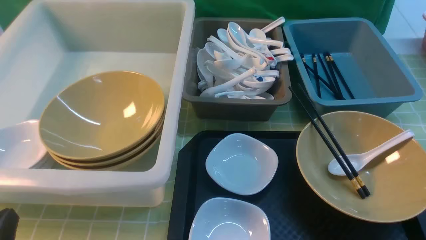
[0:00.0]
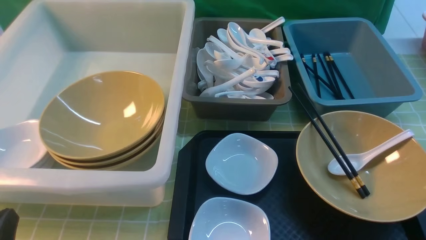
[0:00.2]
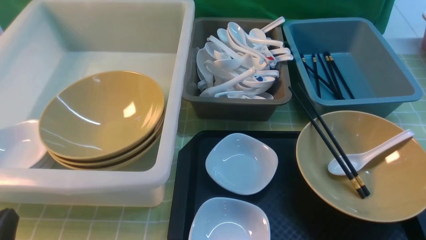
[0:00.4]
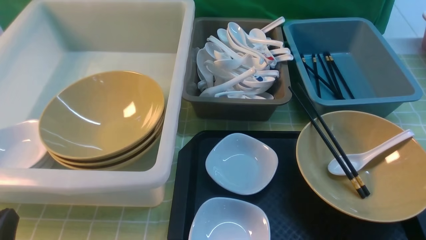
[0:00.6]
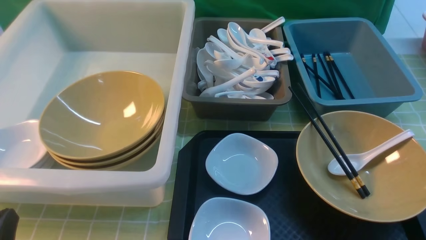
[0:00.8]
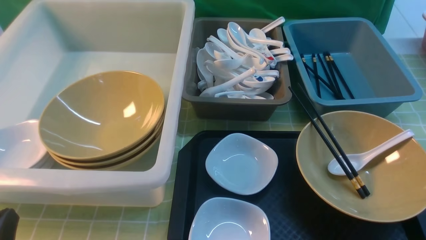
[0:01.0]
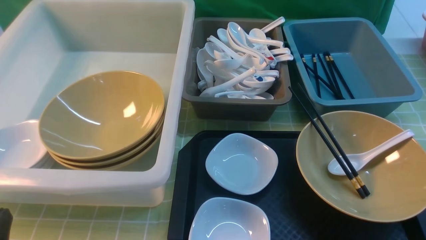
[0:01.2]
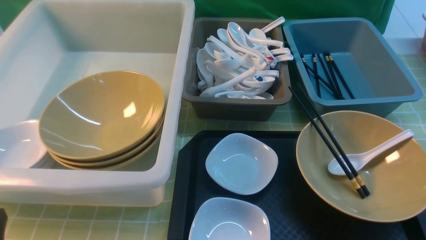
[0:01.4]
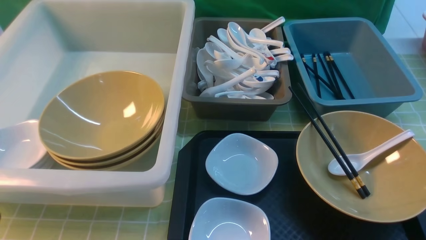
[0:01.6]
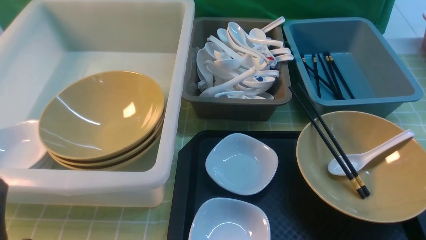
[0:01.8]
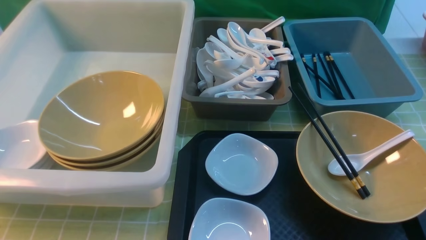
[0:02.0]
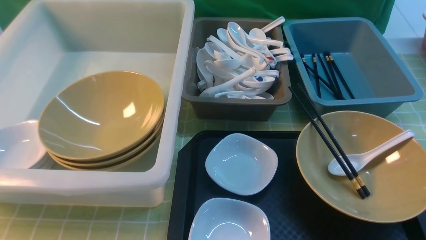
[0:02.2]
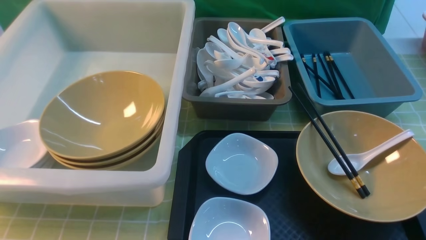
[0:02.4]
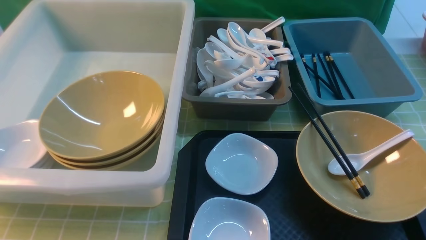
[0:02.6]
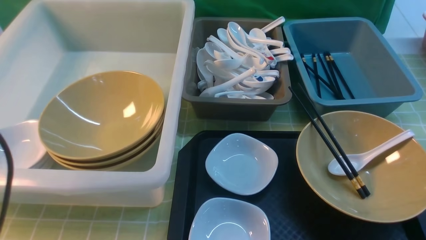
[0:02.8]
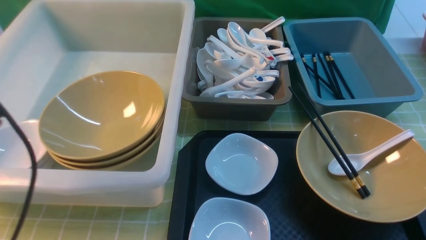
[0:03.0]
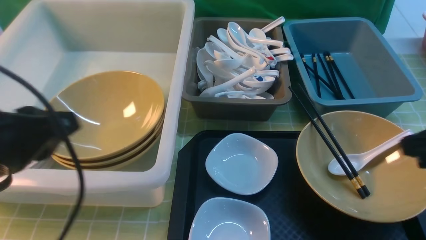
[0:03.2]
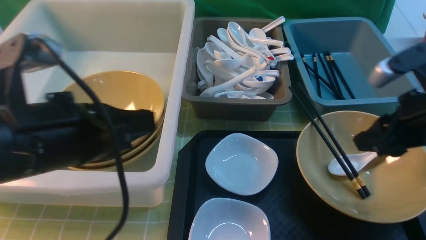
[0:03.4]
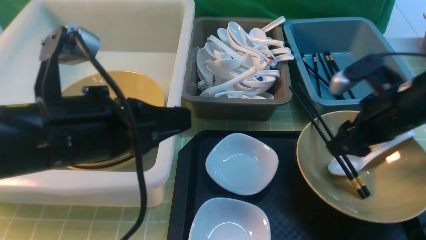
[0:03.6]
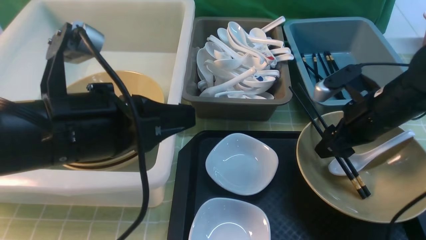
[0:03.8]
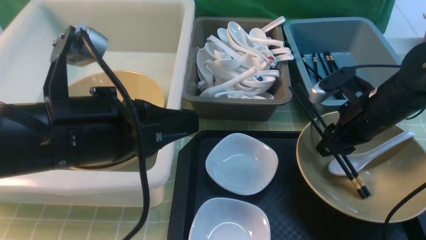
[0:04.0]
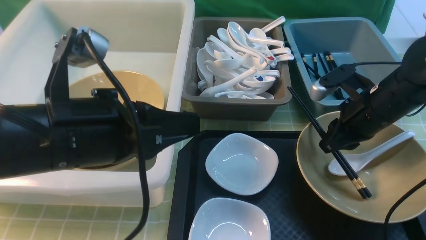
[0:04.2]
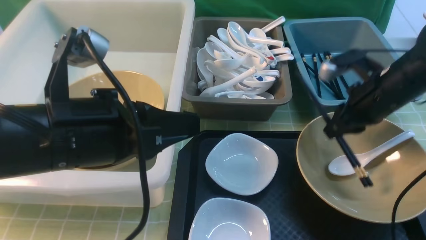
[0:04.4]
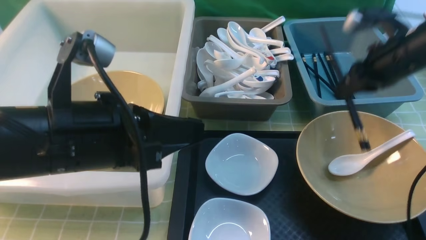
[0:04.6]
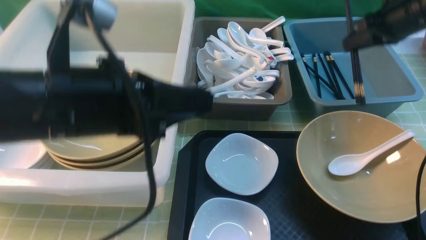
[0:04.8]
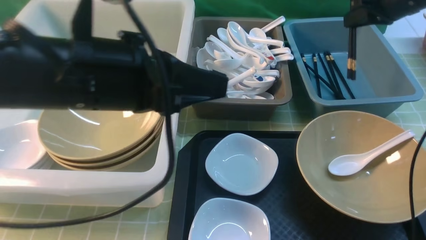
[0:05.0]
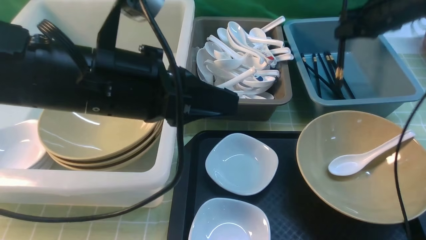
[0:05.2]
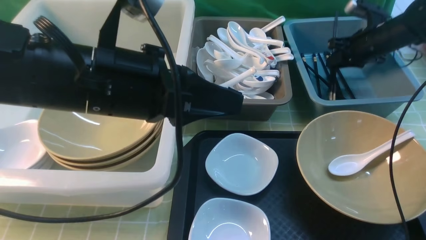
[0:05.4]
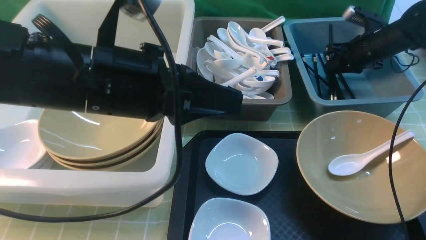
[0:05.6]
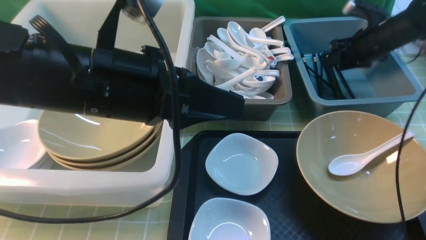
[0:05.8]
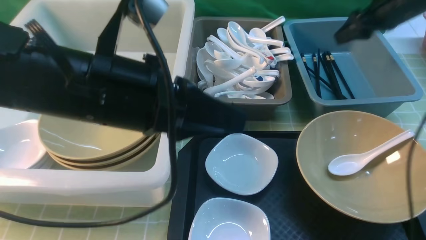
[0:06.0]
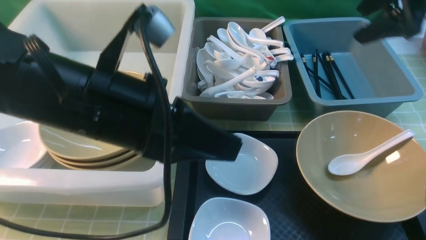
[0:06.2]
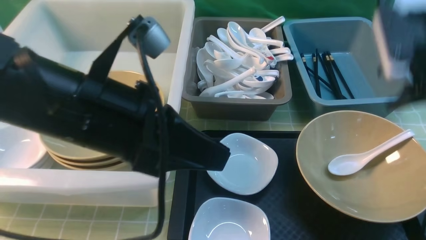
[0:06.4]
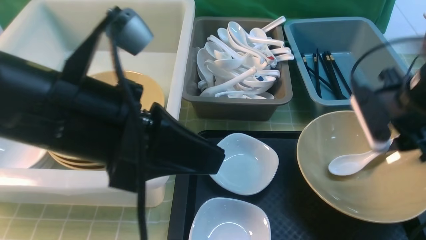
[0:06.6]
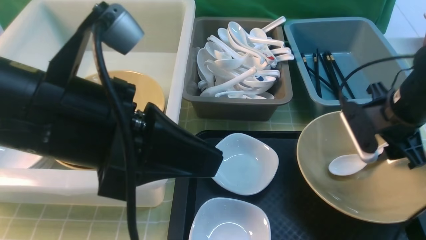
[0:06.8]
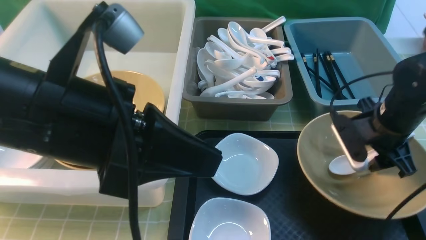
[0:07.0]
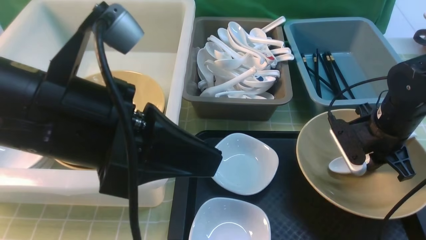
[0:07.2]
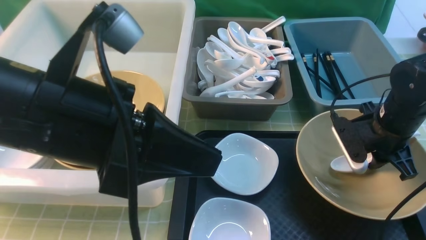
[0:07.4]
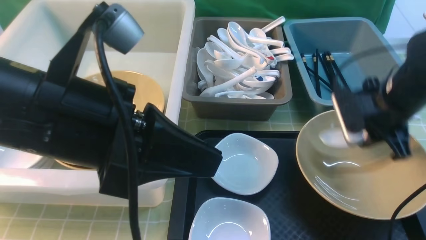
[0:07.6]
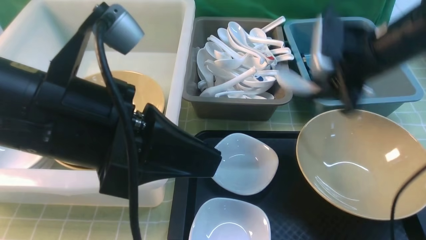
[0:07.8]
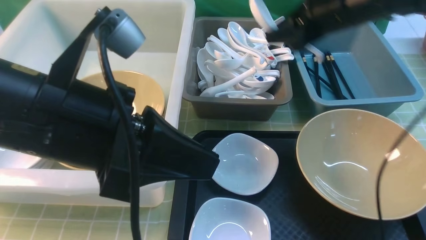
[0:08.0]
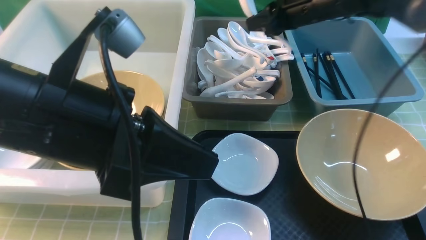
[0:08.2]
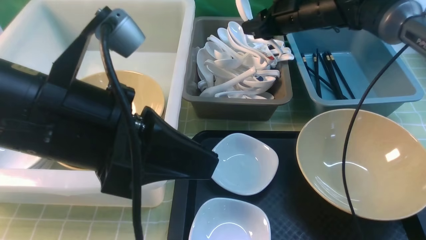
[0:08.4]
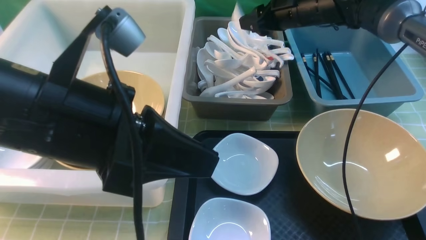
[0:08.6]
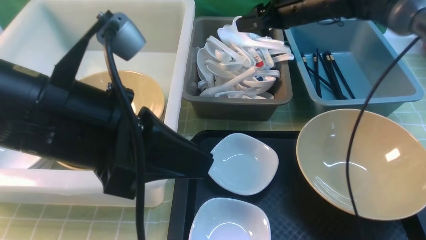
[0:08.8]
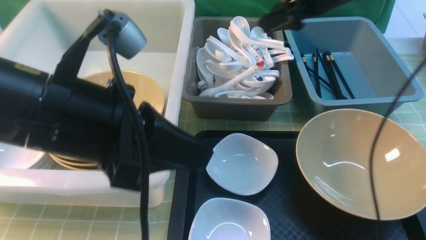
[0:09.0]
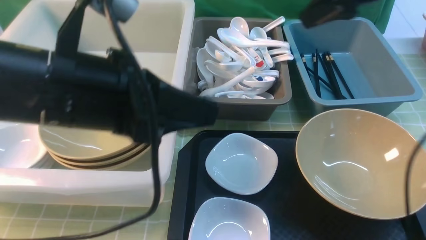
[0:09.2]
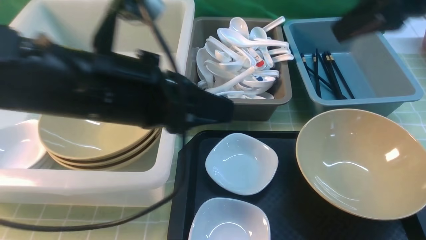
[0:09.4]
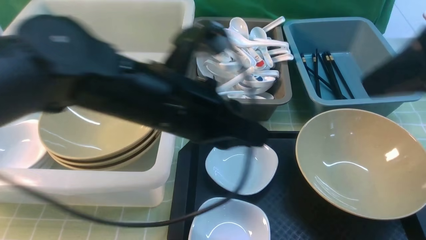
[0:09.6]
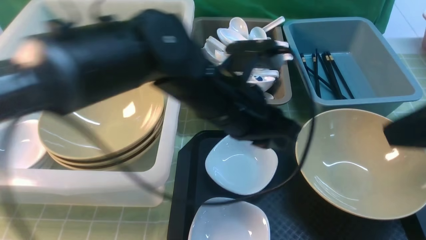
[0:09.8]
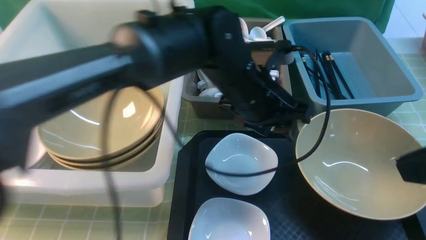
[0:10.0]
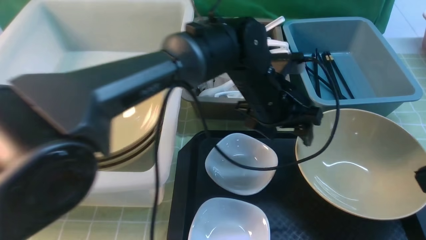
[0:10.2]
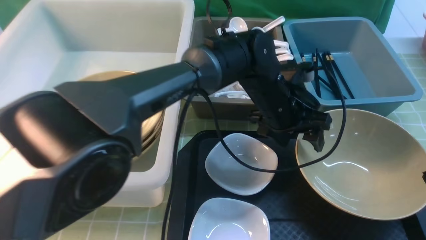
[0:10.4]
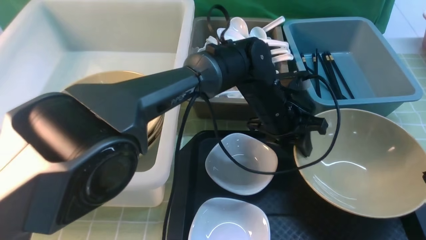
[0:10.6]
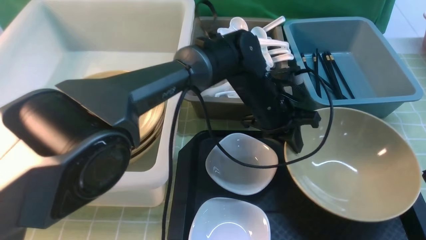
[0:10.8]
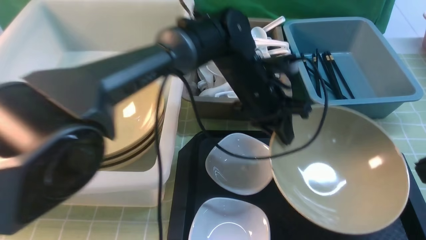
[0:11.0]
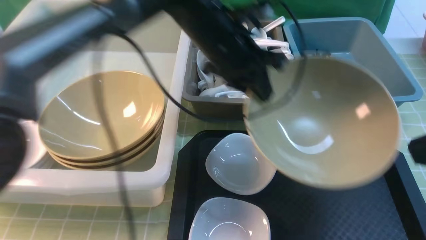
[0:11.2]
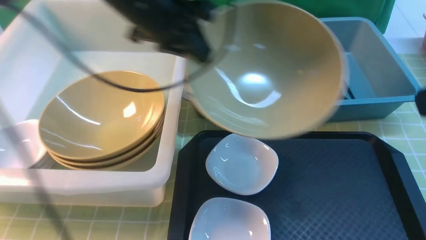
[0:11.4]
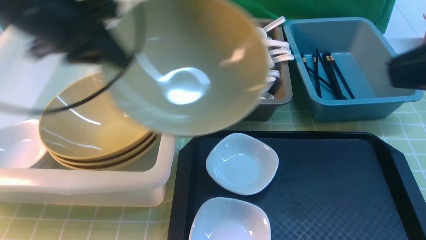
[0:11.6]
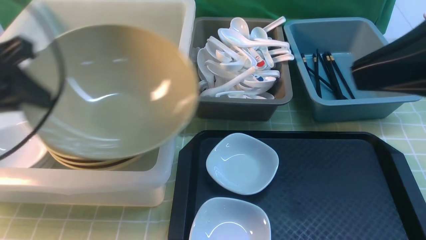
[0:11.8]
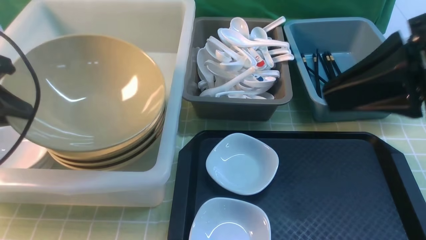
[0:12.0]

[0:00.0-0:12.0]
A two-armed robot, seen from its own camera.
Task of the whole recording: on green table put chopsticks spoon bowls plates into blue grey white boxes.
Step, 0:00.0 to 0:04.6: use the right arm to grab the chopsticks.
Step, 0:04.8 to 0:06.6: use the right arm to put the chopsticks into the small storage box on the right.
Step, 0:06.8 to 0:07.6: use the right arm to grab the soup spoon in the middle.
Step, 0:07.8 to 0:08.8: use the right arm to put the soup spoon into the small storage box in the middle.
Step, 0:09.2 to 0:10.8: use the left arm to grab the yellow noodle bowl on the left.
0:01.6 to 0:03.0: The left gripper travels upward and forward by about 15 cm.
0:03.0 to 0:04.4: The left gripper shifts some 10 cm to the right. The right gripper travels forward and downward by roughly 25 cm, and opens, then closes once more.
0:04.4 to 0:06.0: The left gripper changes place by roughly 5 cm. Meanwhile the right gripper travels forward and to the right by roughly 15 cm, and opens its fingers.
0:06.0 to 0:07.6: The left gripper changes place by some 5 cm, while the right gripper heads backward, to the left and downward, covering approximately 15 cm, and closes.
0:07.6 to 0:09.0: The right gripper is displaced forward, upward and to the left by about 20 cm, and opens up.
0:09.0 to 0:10.4: The right gripper shifts some 35 cm backward, and closes its fingers. The left gripper moves to the right, forward and downward, some 30 cm, and opens.
0:10.4 to 0:12.0: The right gripper moves forward, upward and to the left, roughly 10 cm. Meanwhile the left gripper heads to the left, covering roughly 35 cm, and closes its fingers.

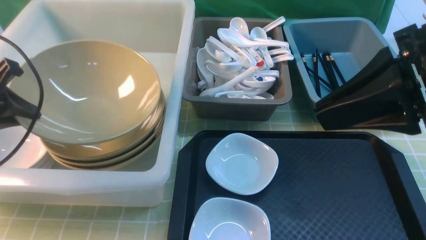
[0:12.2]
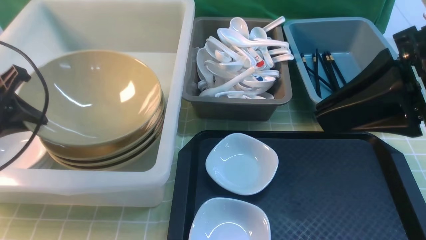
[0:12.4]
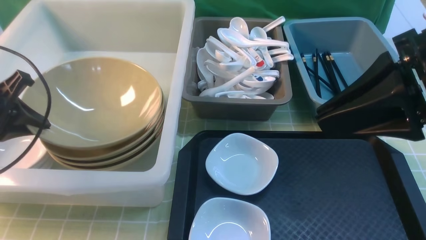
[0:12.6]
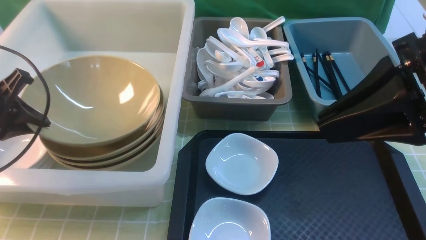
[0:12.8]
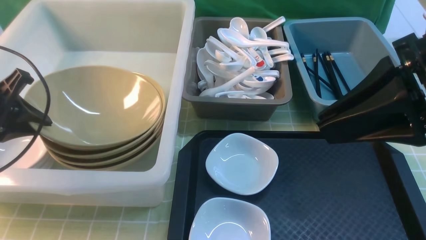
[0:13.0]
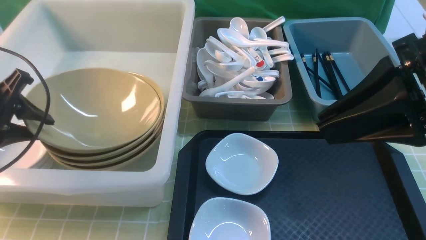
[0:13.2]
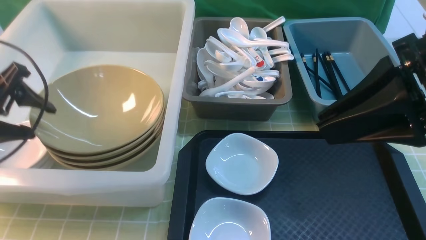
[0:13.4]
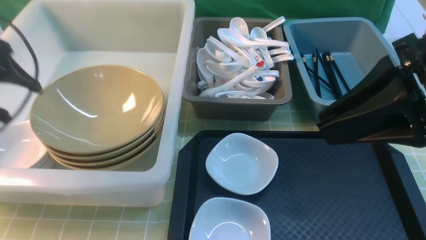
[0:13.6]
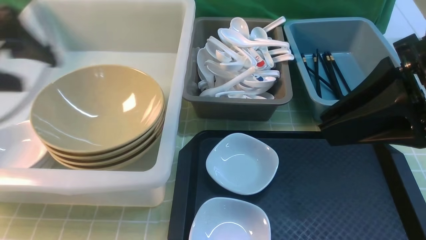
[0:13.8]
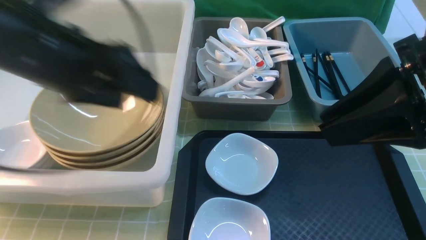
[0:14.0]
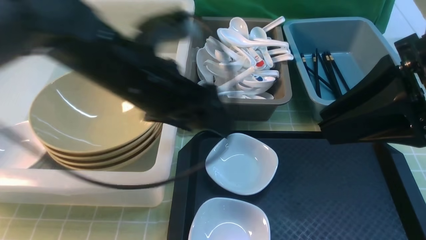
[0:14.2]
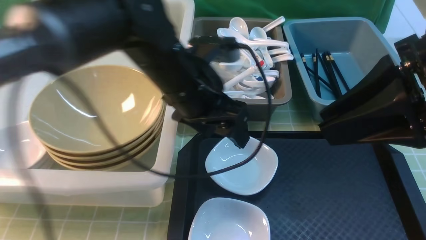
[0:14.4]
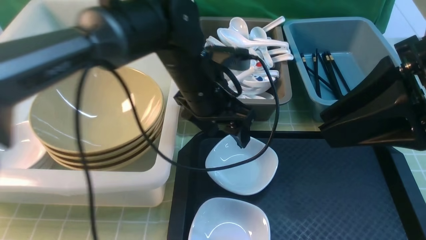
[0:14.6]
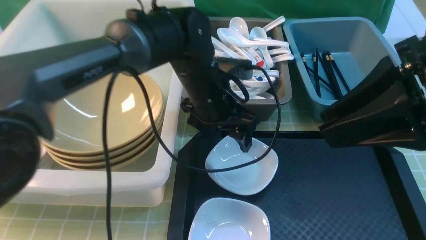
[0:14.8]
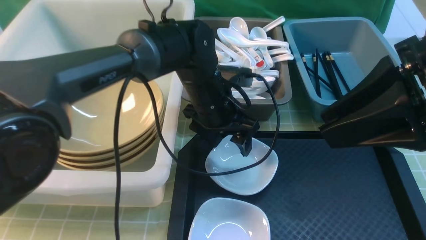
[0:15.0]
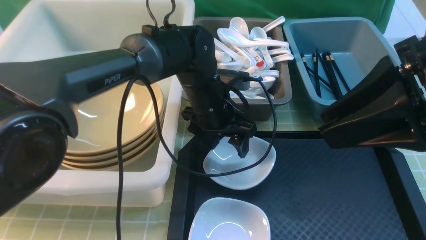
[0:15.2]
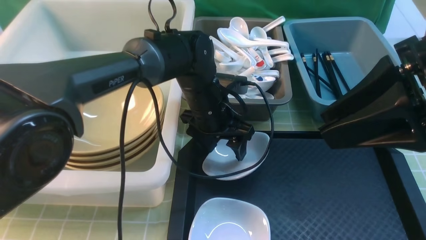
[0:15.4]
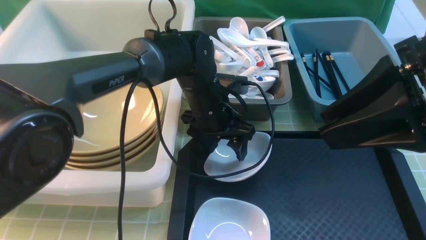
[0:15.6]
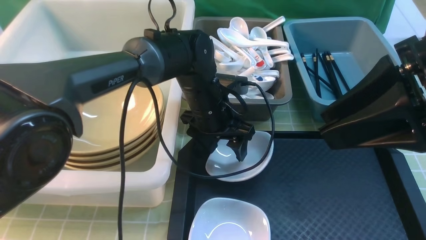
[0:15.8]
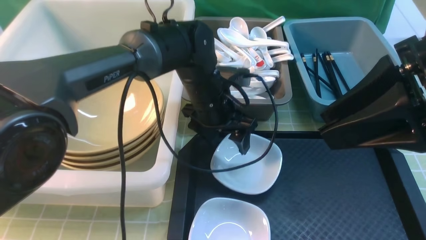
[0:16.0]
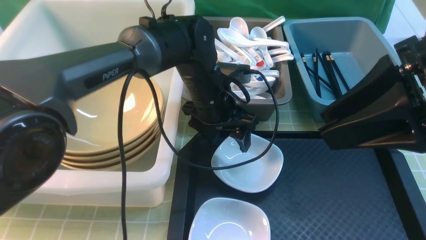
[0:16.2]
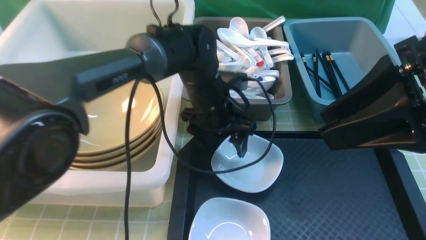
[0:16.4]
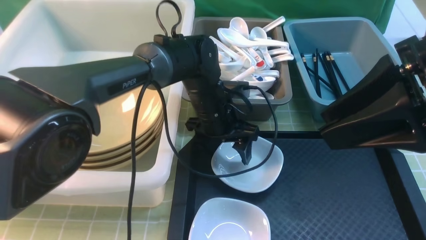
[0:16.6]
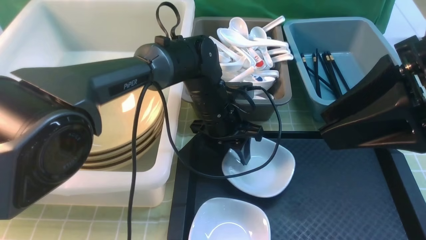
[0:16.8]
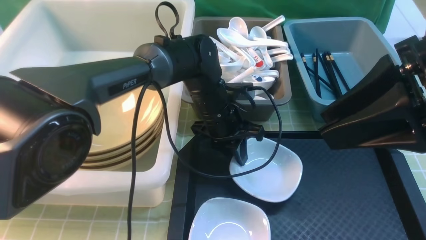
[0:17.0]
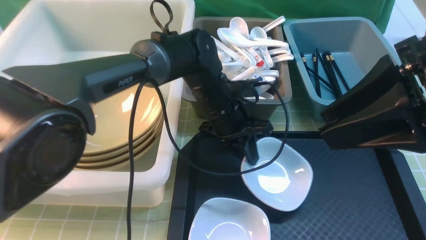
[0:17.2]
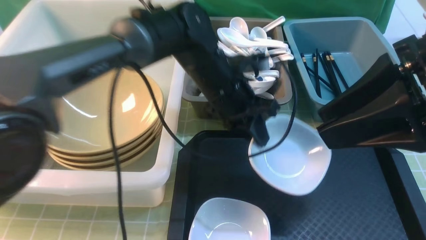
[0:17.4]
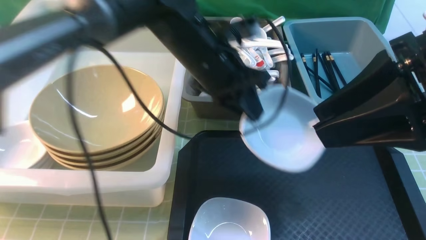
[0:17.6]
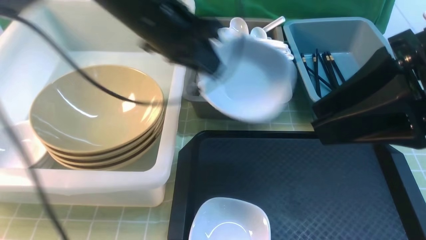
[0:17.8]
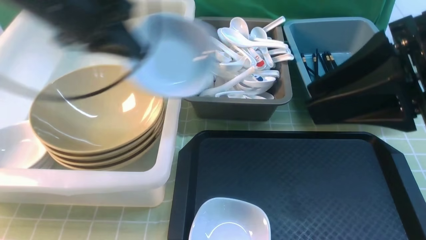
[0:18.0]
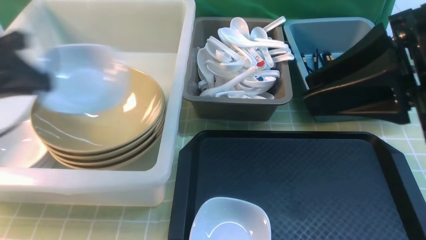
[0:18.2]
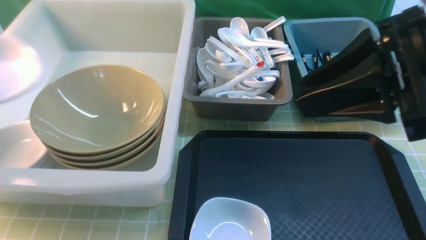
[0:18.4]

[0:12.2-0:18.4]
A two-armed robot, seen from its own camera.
Task of the whole recording: on green table put chopsticks spoon bowls plates into blue grey white boxes.
Step, 0:13.6 to 0:17.4: use the left arm to grab the plate.
0:12.2 to 0:13.8: The left gripper changes place by approximately 5 cm, and opens its fingers.
0:13.8 to 0:15.4: The left gripper goes approximately 30 cm to the right and downward.
0:15.4 to 0:16.8: The left gripper closes up.
0:16.8 to 0:18.4: The left gripper is displaced to the left by about 35 cm, and closes up.
